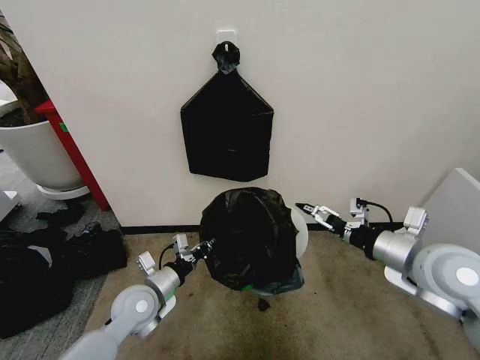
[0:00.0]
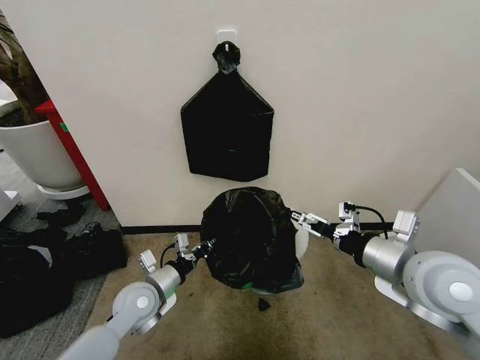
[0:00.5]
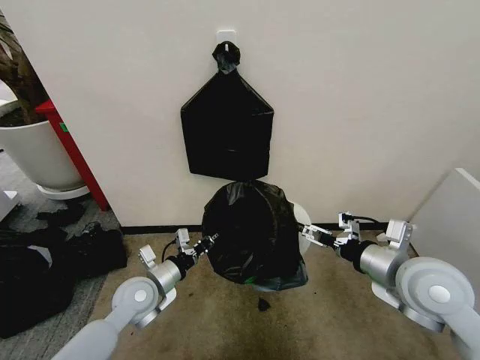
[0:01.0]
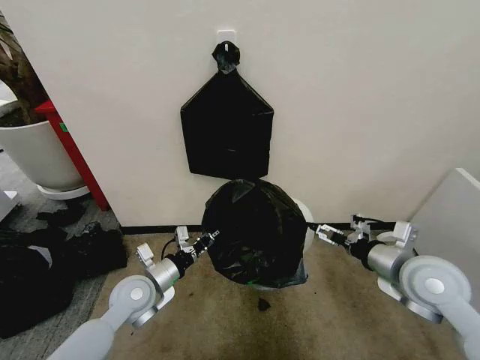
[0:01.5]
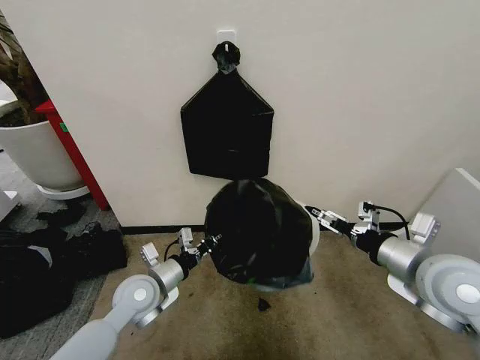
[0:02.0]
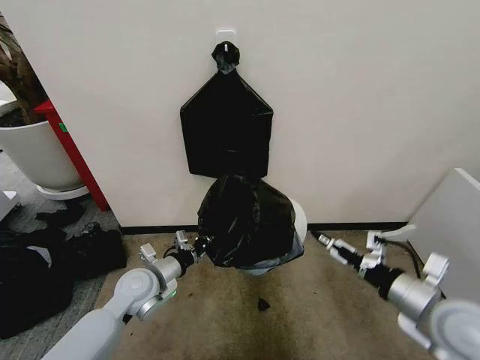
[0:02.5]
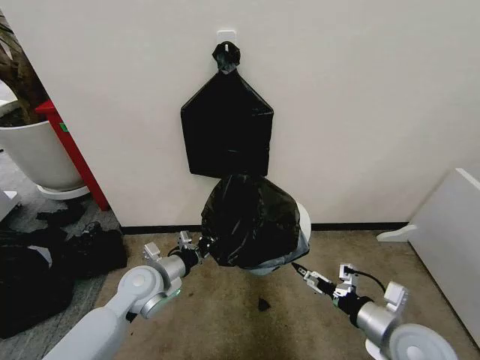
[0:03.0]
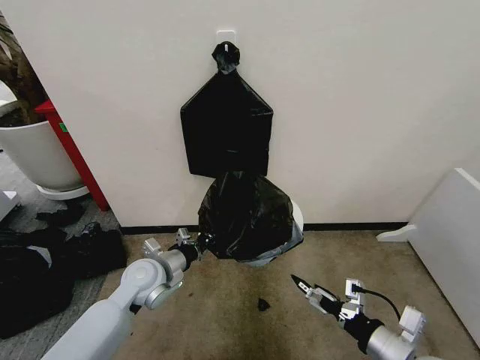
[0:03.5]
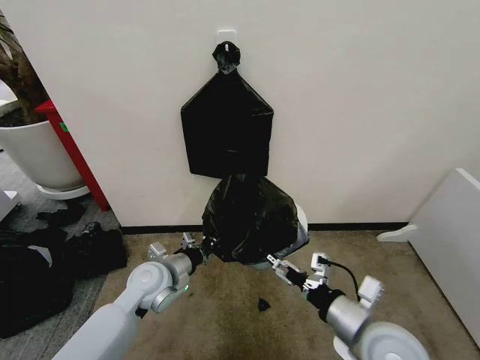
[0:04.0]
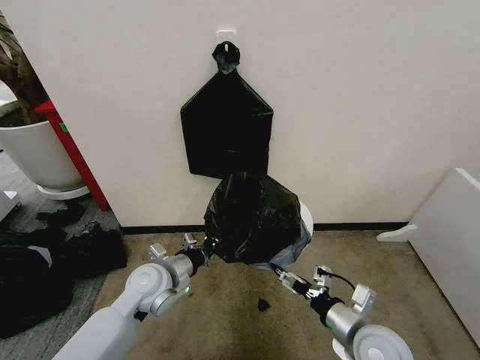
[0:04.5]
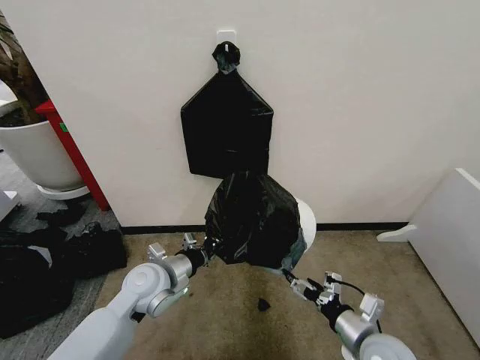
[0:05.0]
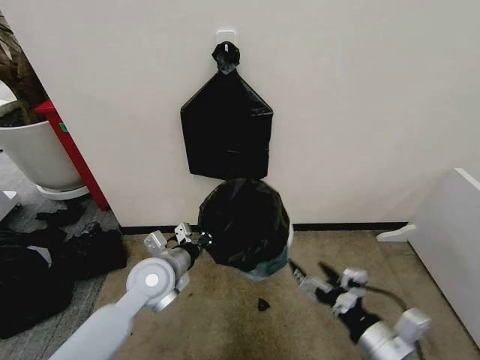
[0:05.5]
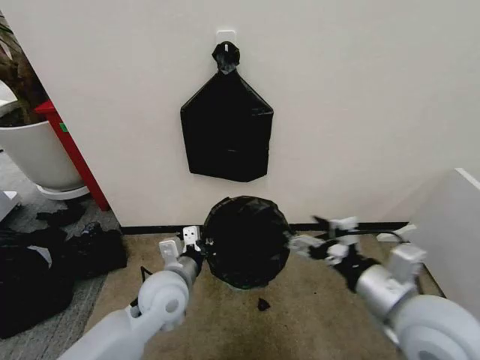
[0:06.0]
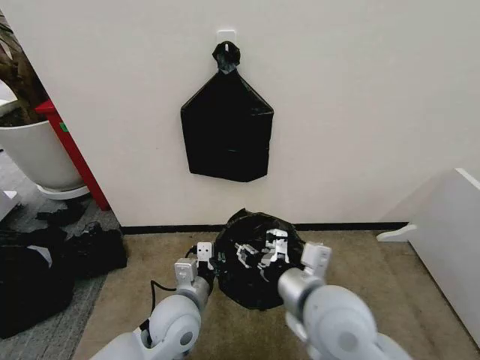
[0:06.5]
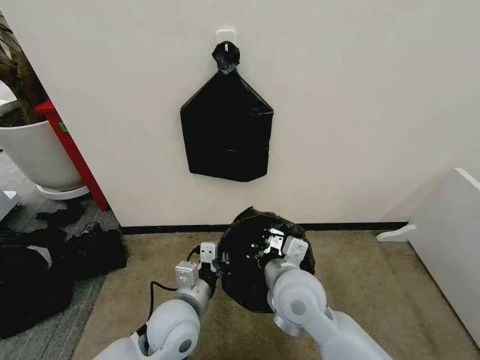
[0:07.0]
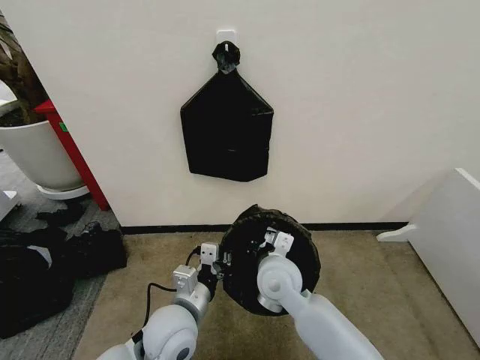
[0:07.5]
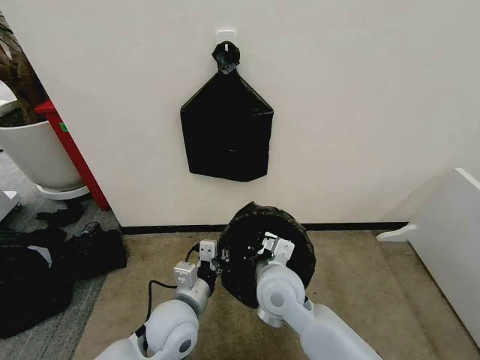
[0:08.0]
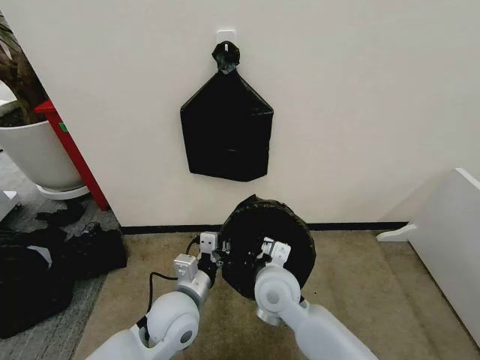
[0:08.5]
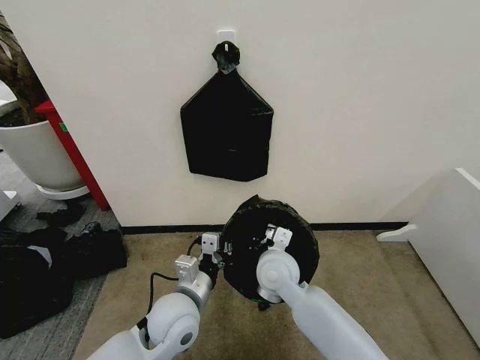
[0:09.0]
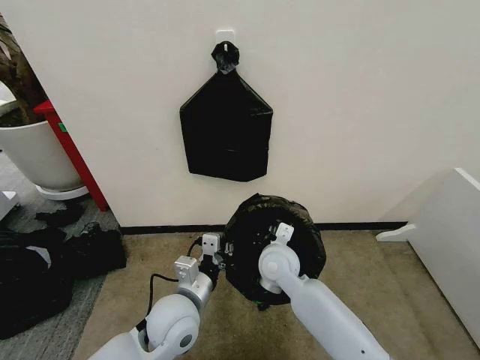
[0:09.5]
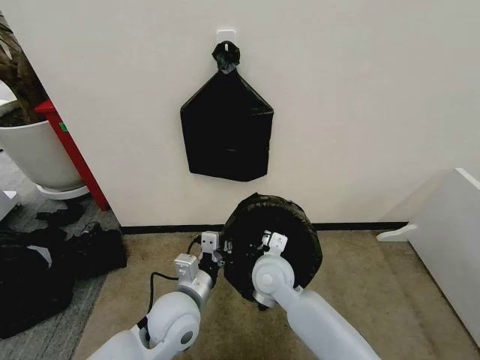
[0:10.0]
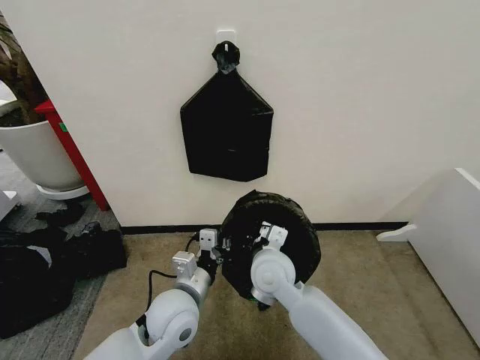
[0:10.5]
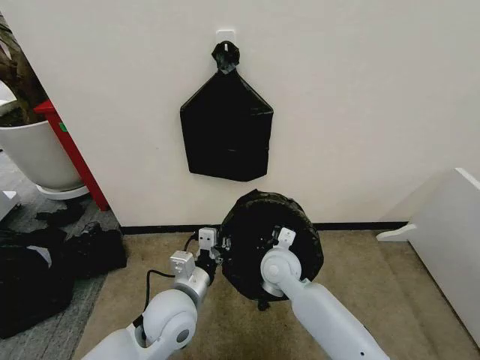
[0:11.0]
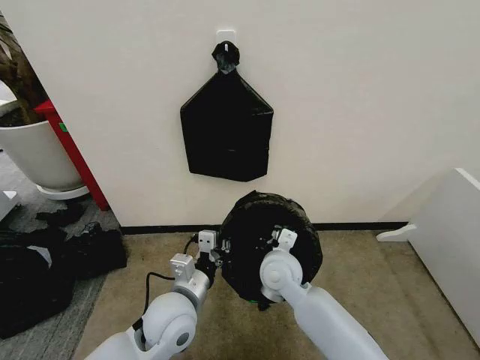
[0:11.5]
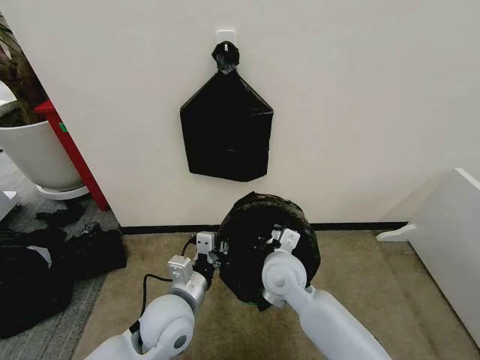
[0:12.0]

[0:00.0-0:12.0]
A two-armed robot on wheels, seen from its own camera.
Task of the whole recording: Place the garbage bag over the trash bin.
0:00.0 to 0:02.0: The grippers stay close to where they were, moving slightly.
0:02.0 to 0:04.0: The right gripper goes roughly 15 cm downward, to the left and backward.
0:04.0 to 0:06.0: The left gripper goes about 5 cm to the right; the right gripper moves upward, roughly 10 cm.
0:06.0 to 0:08.0: The right gripper is displaced to the left, downward and forward by roughly 25 cm, and closes its fingers; the left gripper ends up roughly 5 cm from where it was.
0:08.0 to 0:10.0: The right gripper shifts by about 5 cm.
0:10.0 to 0:12.0: The grippers stay close to where they were, moving slightly.

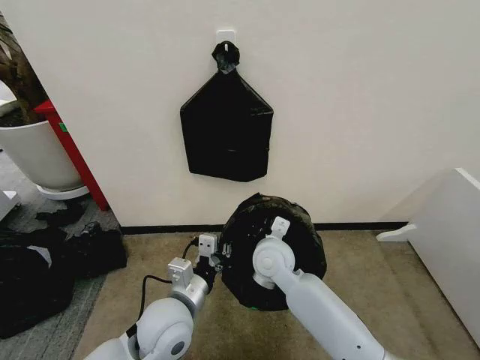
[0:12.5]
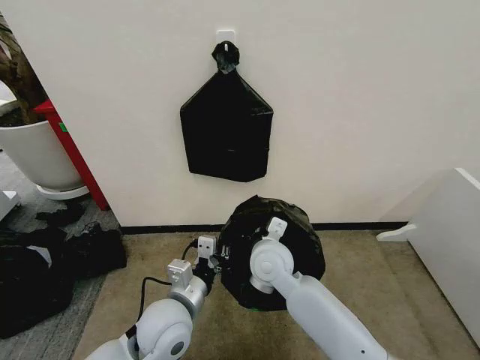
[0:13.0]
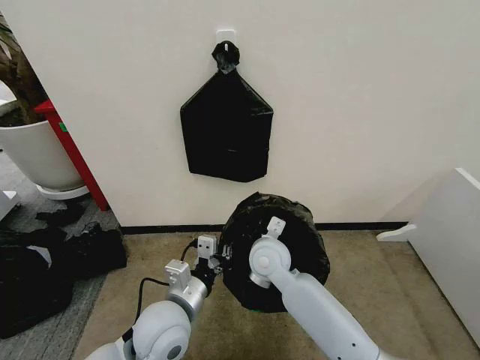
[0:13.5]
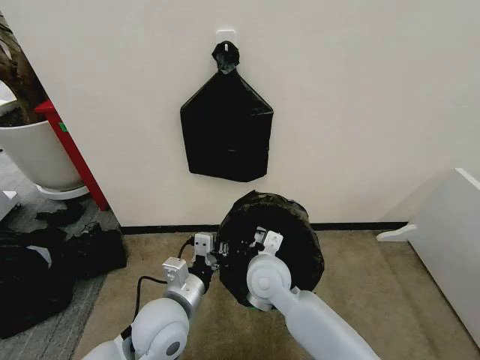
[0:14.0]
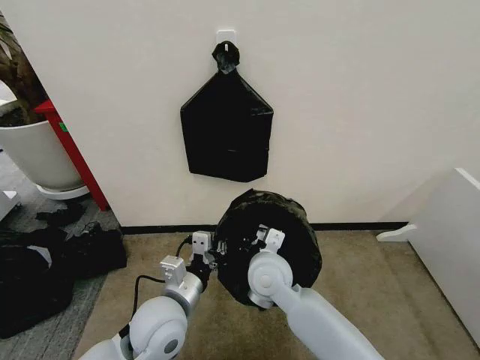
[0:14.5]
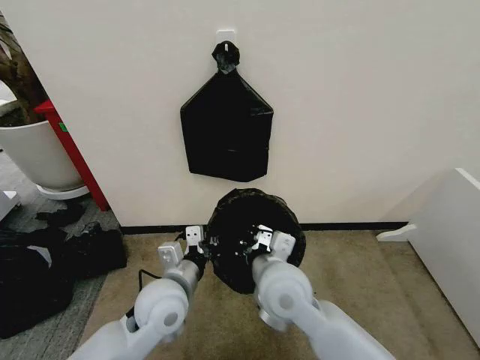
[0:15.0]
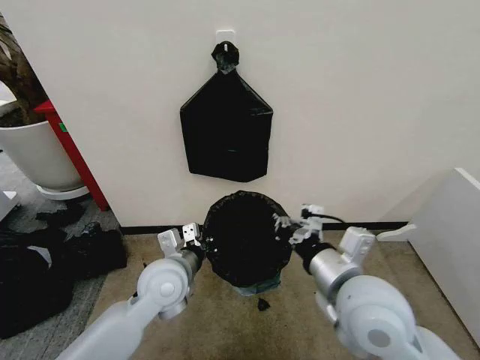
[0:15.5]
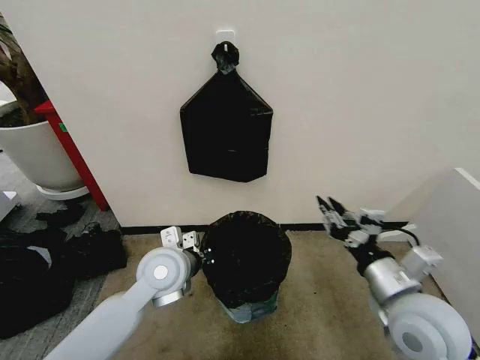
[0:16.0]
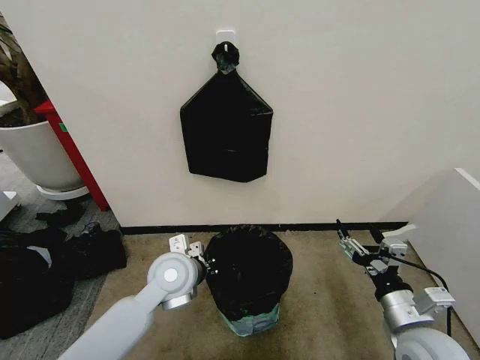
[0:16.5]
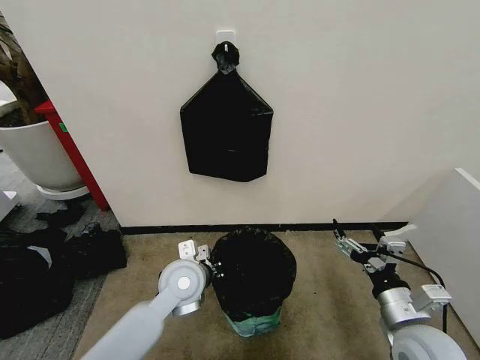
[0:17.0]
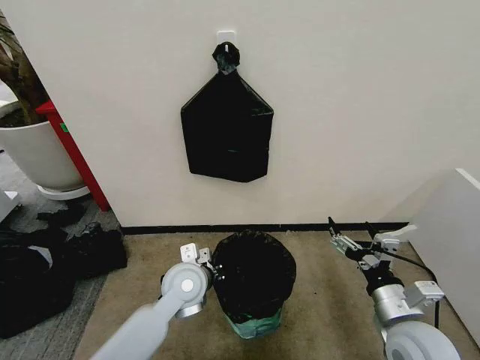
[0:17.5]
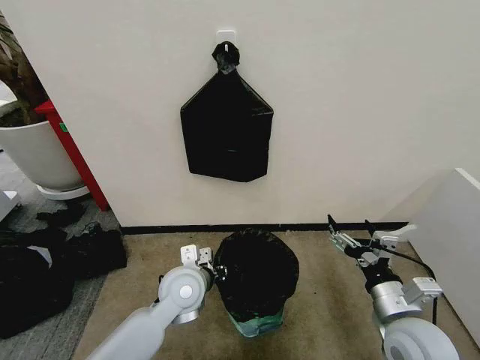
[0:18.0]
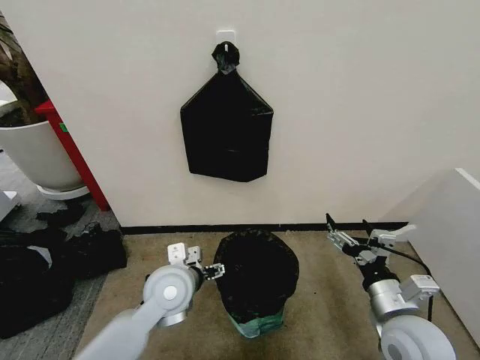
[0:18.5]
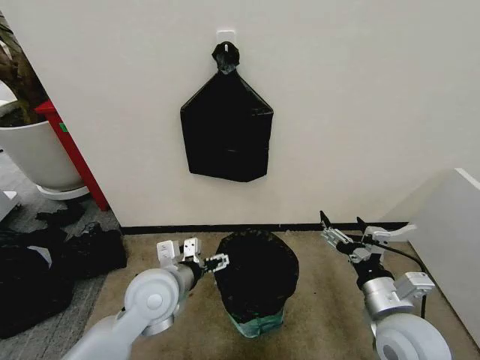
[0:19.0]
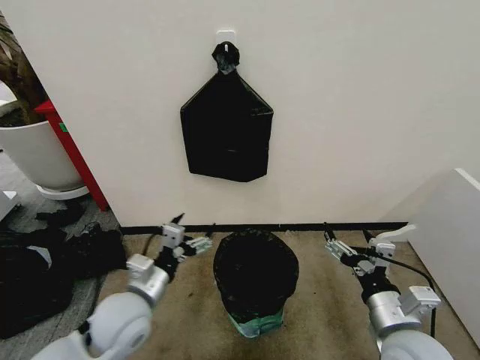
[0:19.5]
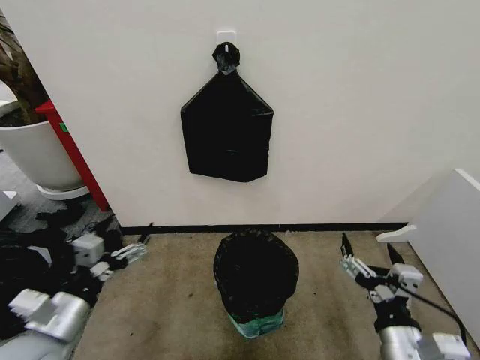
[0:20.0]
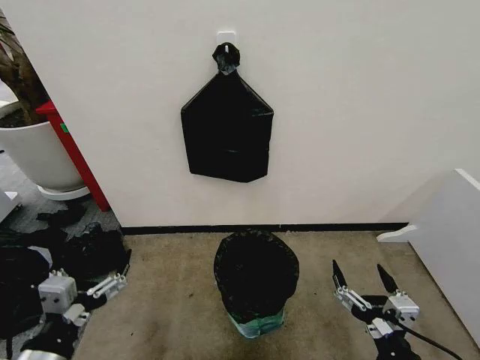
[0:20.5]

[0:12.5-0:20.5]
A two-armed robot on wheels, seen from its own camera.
Task of the whole recording: Place the garbage bag over the trash bin.
0:12.5 to 0:14.5: The grippers move only a little.
0:14.5 to 0:16.5: The right gripper is displaced to the right and backward by some 30 cm, and opens. Meanwhile the left gripper heads forward, covering about 10 cm.
0:16.5 to 0:18.5: The left gripper opens up.
0:18.5 to 0:20.5: The left gripper travels backward and to the left by about 25 cm. Meanwhile the right gripper moves backward, some 10 cm.

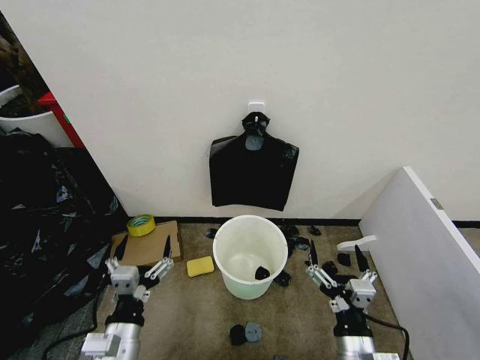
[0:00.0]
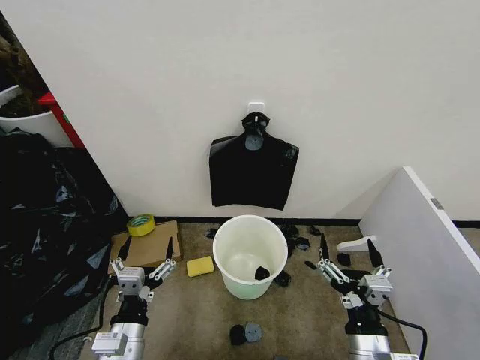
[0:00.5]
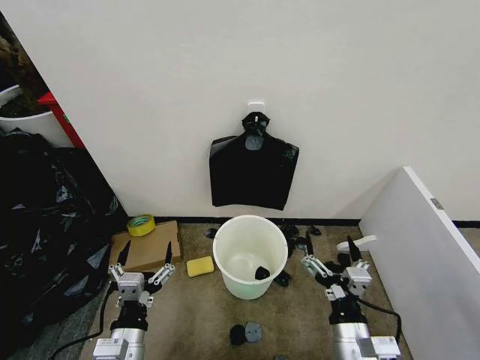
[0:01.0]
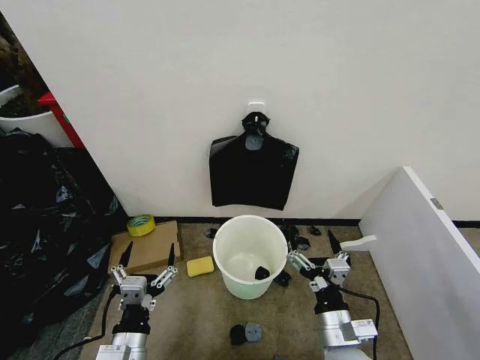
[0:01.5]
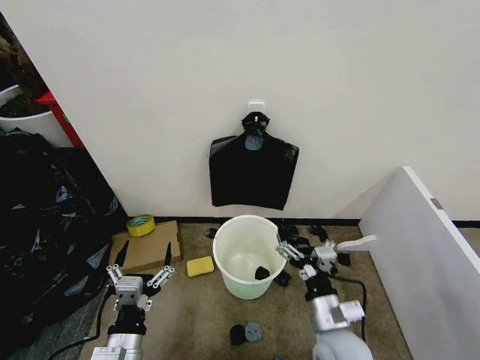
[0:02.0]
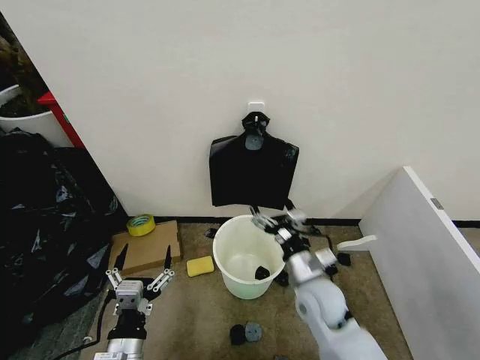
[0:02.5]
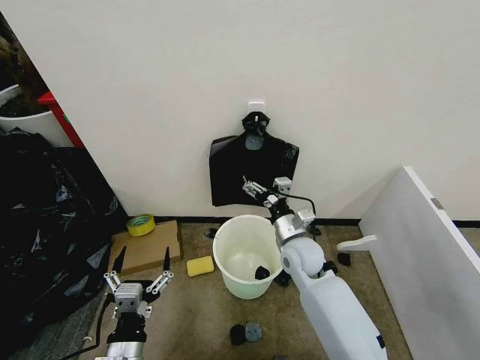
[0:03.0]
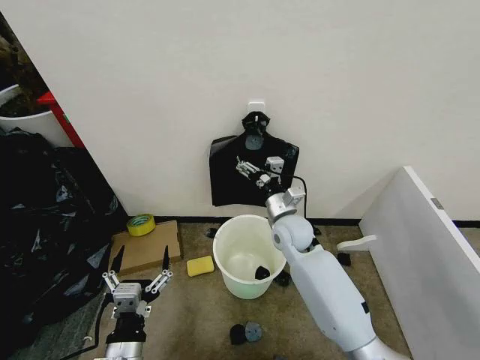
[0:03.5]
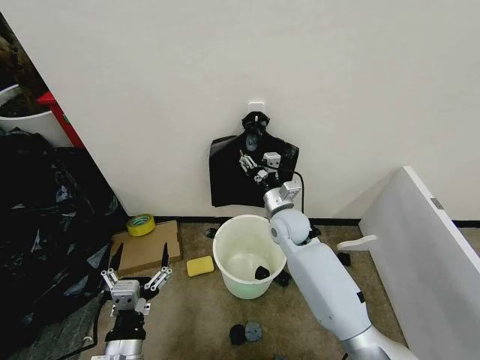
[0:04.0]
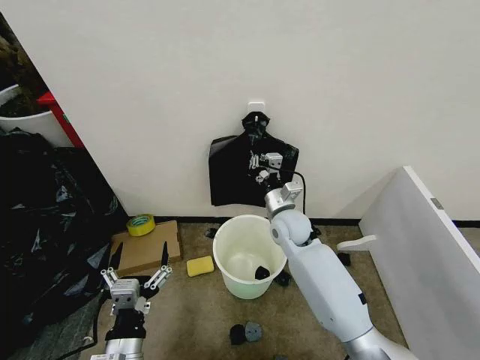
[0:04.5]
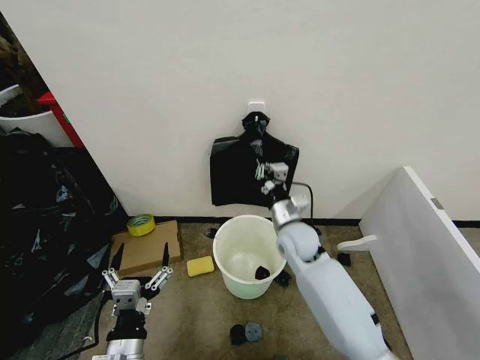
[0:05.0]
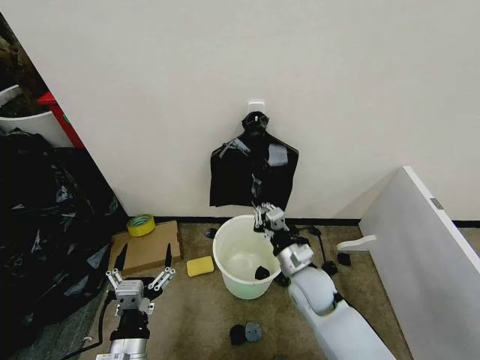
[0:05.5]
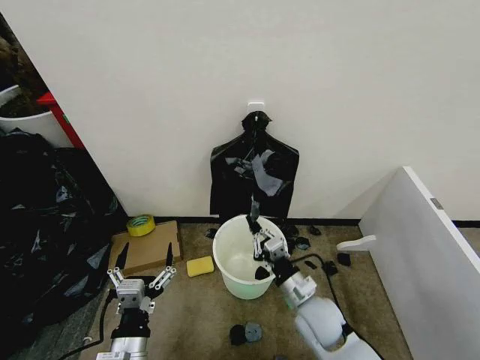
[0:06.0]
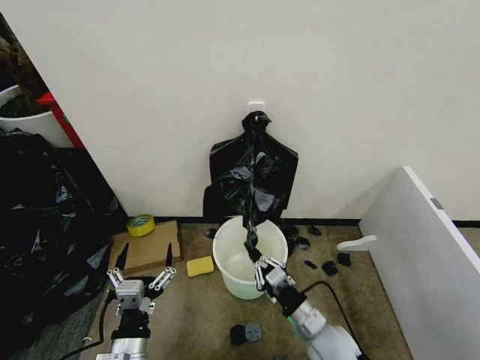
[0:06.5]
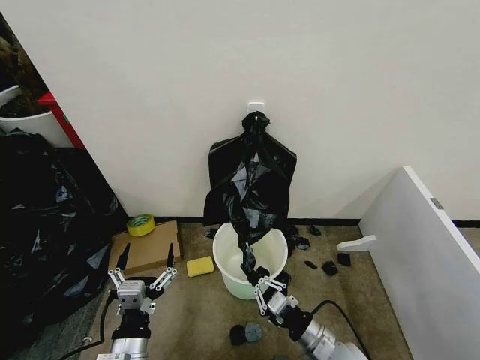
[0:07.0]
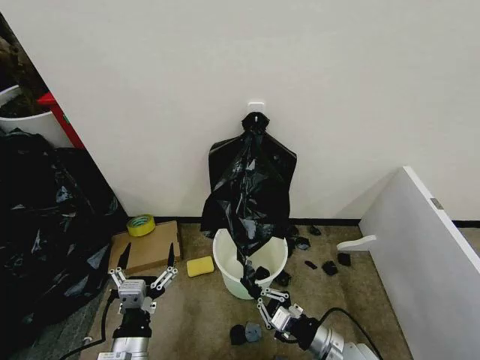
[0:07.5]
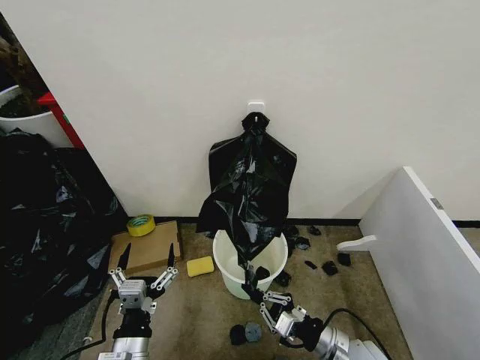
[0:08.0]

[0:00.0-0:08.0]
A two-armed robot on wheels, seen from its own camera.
Task of the whole recording: Place the garbage bag over the trash bin.
0:02.0 to 0:04.0: The right gripper shifts some 25 cm forward, and closes its fingers.
0:04.0 to 0:06.0: The right gripper travels backward and downward by roughly 20 cm, and closes its fingers.
0:06.0 to 0:08.0: The right gripper is displaced to the right and backward by roughly 10 cm.
